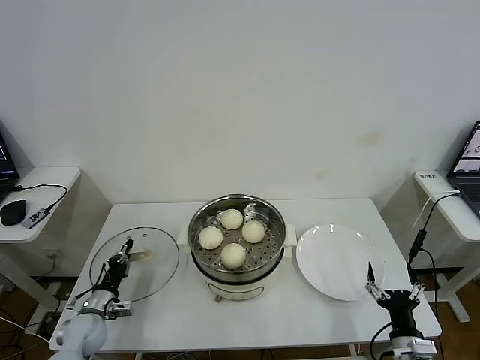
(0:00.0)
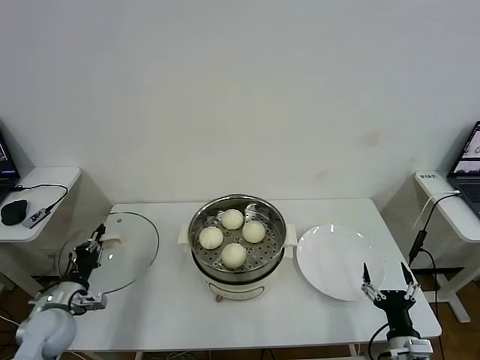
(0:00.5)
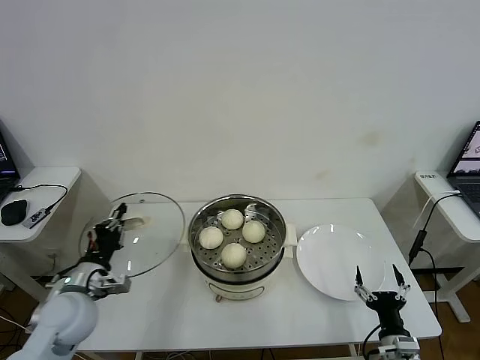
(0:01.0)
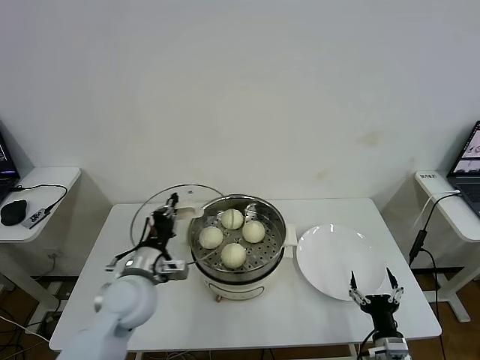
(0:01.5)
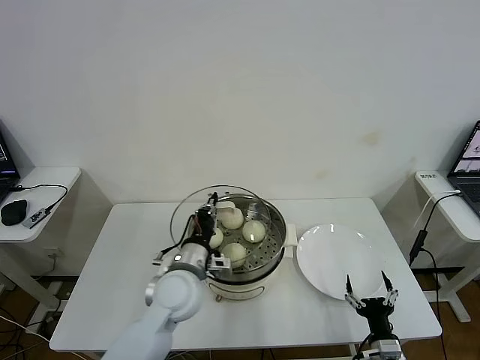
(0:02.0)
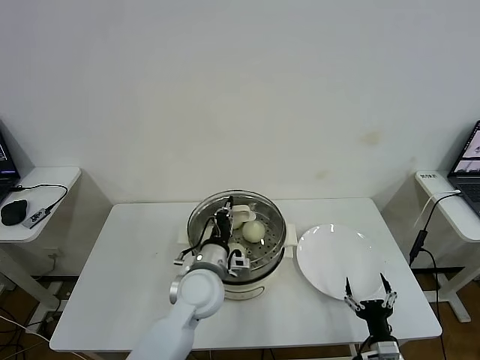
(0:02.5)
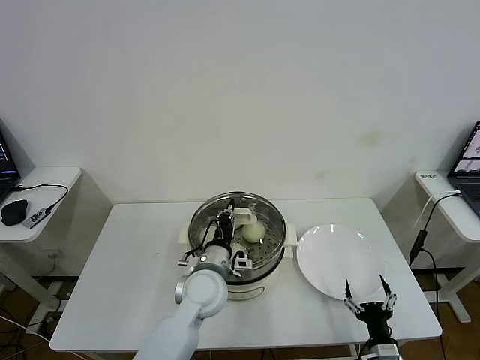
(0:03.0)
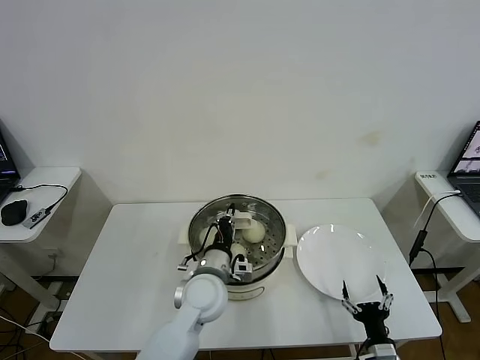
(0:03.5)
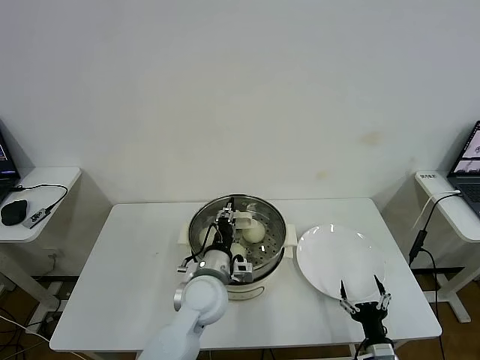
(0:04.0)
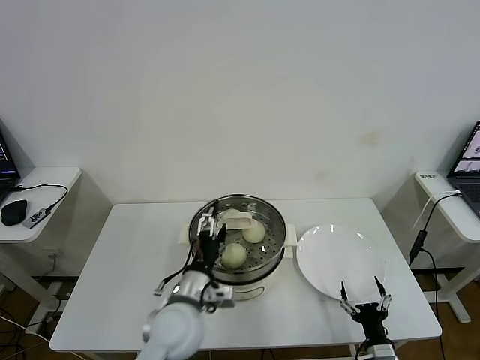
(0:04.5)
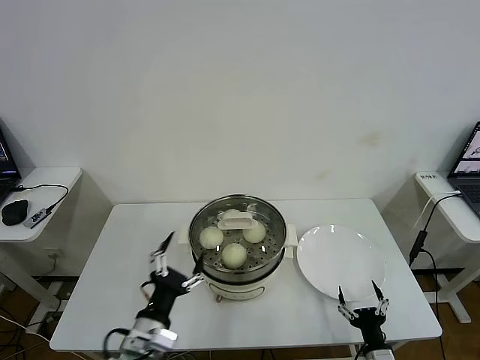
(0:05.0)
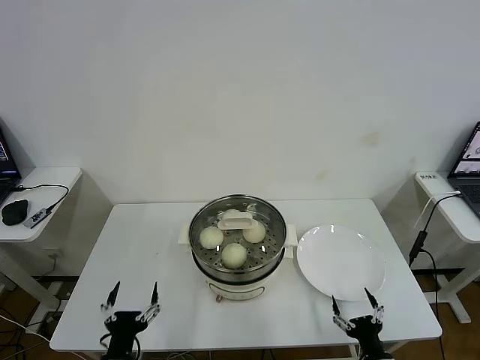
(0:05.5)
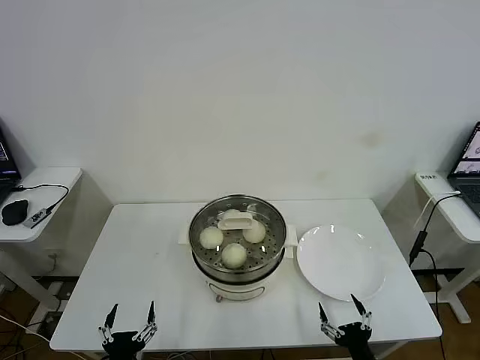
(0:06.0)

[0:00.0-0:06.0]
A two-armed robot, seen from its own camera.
Task of the whole recording: take steamed baozi put them in steamer then cover it.
Step, 0:00.0 to 0:04.0: Place the pot lid on the steamer with left gripper.
0:00.0 to 0:02.0: The left gripper moves to the right and upward, some 30 cm.
0:02.0 to 0:04.0: The left gripper shifts approximately 5 cm to the right.
0:04.0 to 0:06.0: The right gripper changes place by roughly 5 cm. The left gripper goes some 30 cm backward, to the left and downward, and opens.
